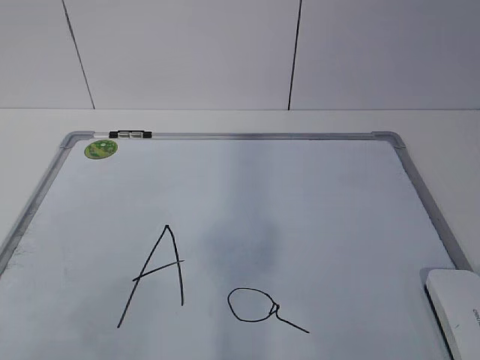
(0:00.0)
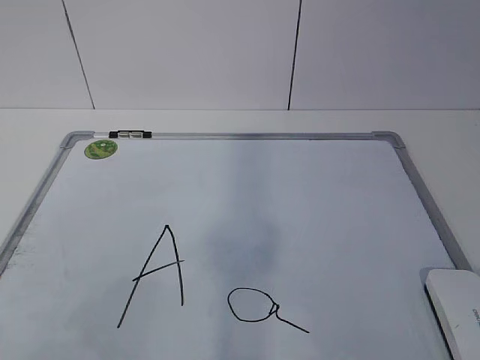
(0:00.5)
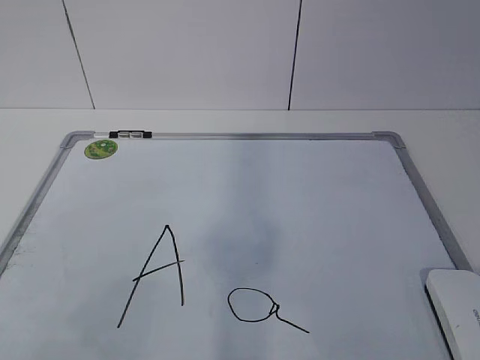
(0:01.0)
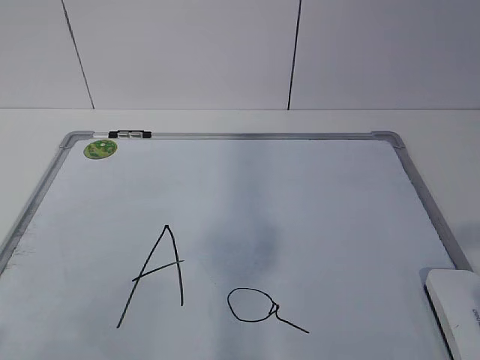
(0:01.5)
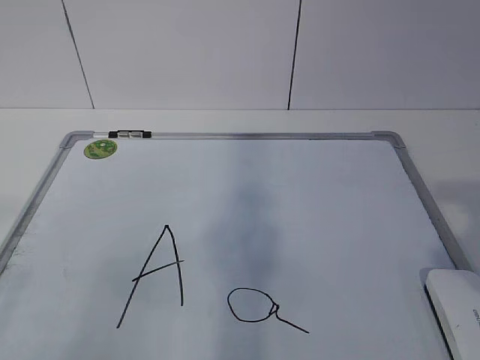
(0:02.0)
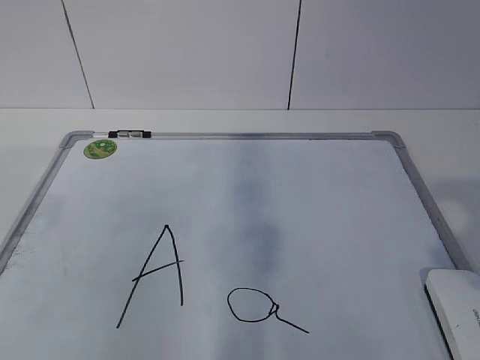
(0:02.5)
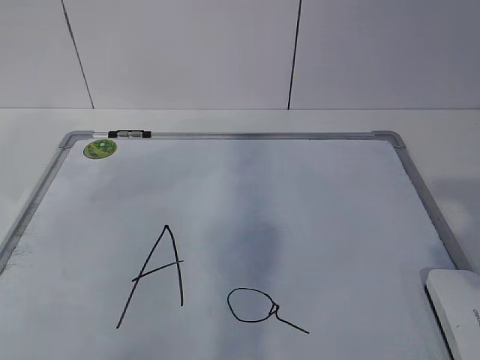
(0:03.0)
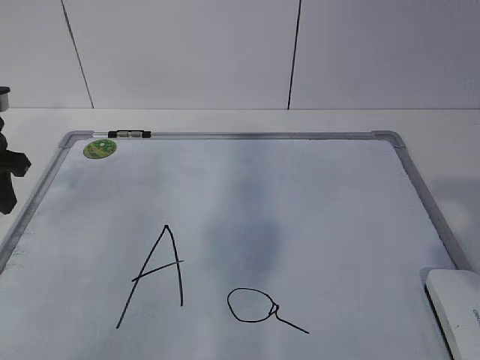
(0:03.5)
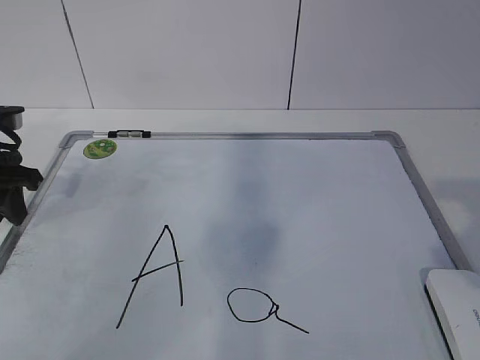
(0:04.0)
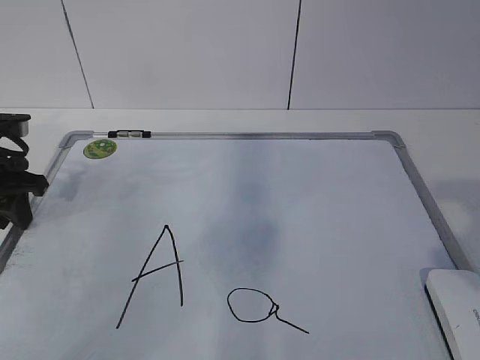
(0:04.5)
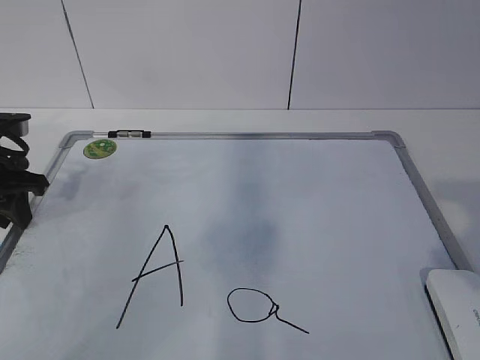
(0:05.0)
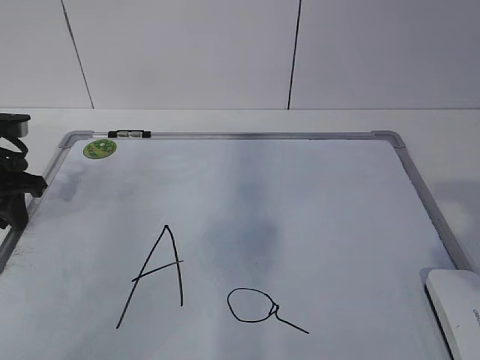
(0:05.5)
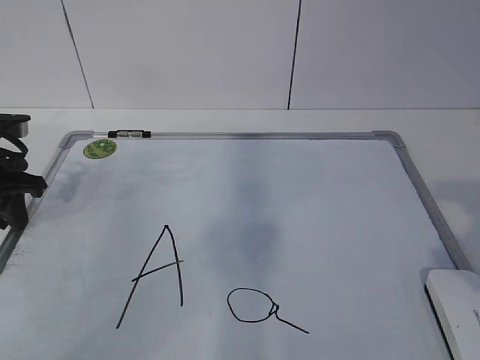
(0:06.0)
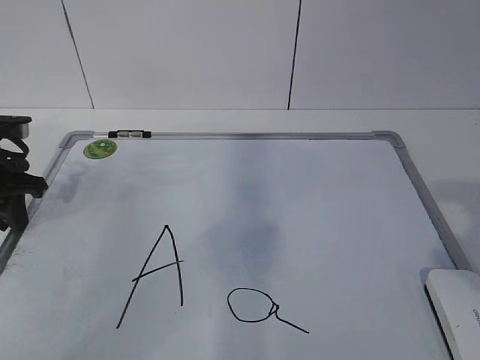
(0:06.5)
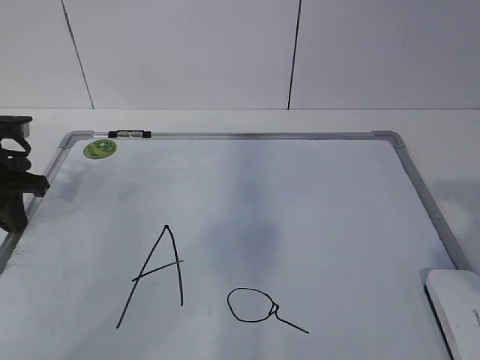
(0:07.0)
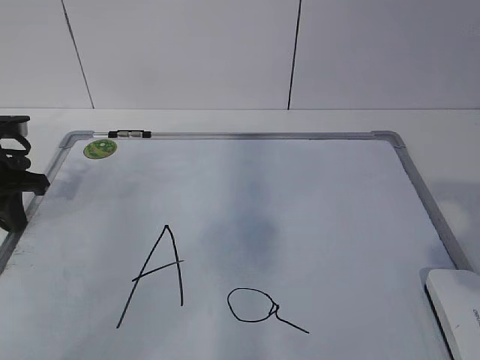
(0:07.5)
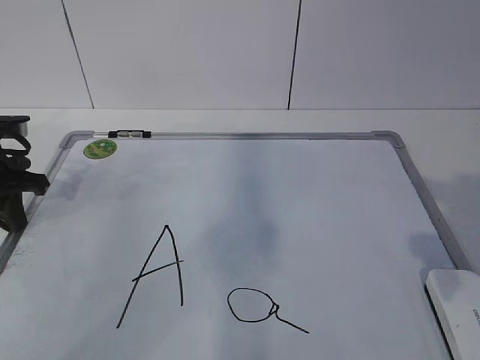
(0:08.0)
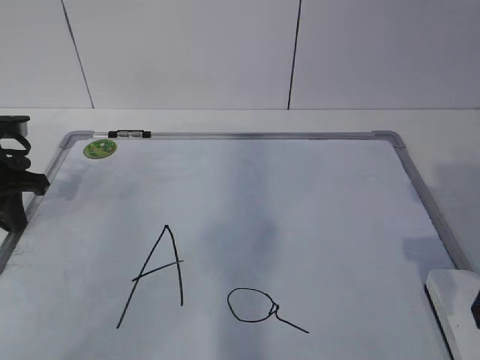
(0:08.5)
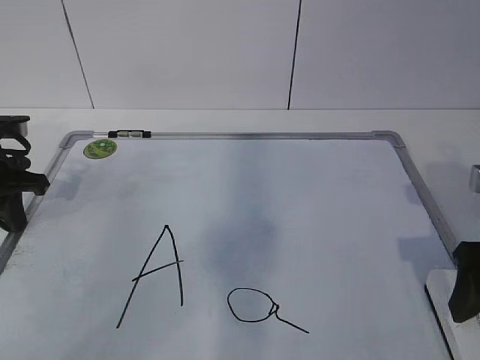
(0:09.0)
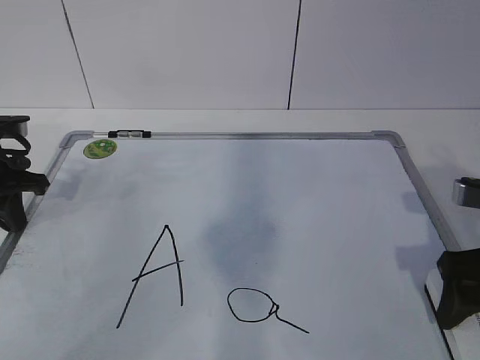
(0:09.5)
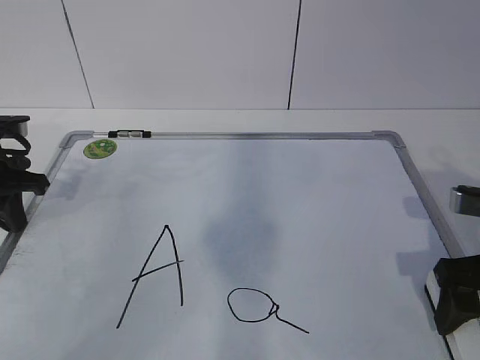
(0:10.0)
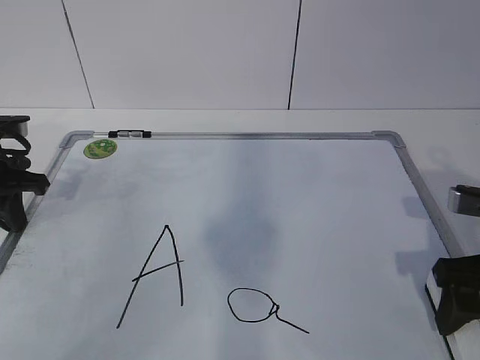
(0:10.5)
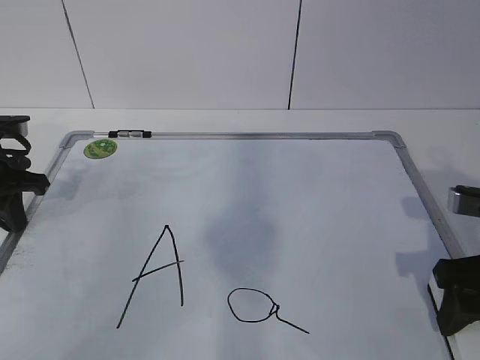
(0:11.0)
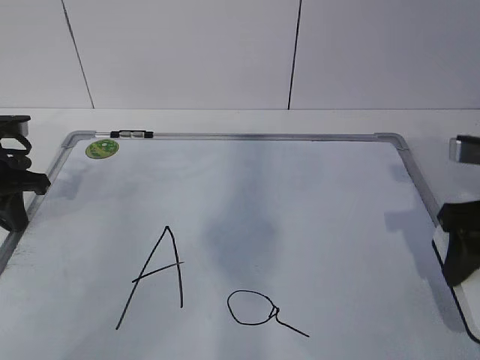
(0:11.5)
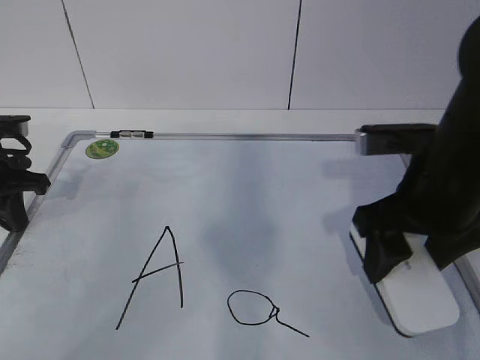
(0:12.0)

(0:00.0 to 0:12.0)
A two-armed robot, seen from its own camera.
Task of the whole recording: pick up the eraser on the blackboard and erase the letter "a".
Step, 0:00.0 - 0:05.5: Hold the drawing board steady with your left hand.
0:02.0 - 0:04.0: The left gripper goes roughly 35 cm forward and downward.
0:04.0 - 0:06.0: There are only small adjustments of the grippers.
0:08.0 - 0:10.0: The right gripper travels downward and forward by some 15 cm.
0:10.0 - 0:12.0: The right gripper moves to the left and upward, approximately 10 cm, and closes up.

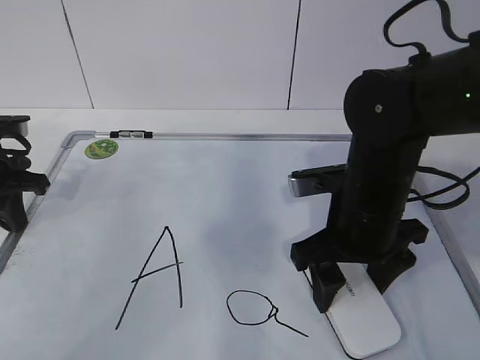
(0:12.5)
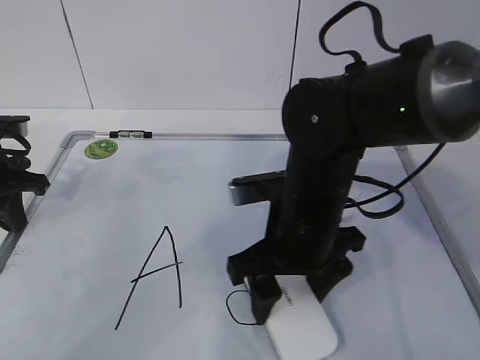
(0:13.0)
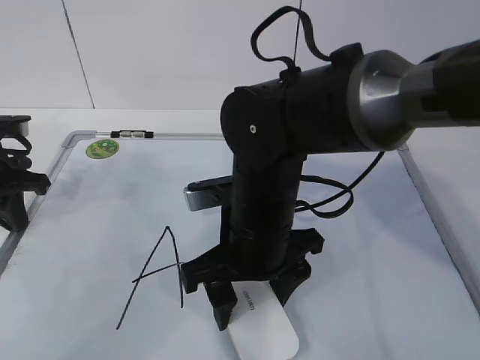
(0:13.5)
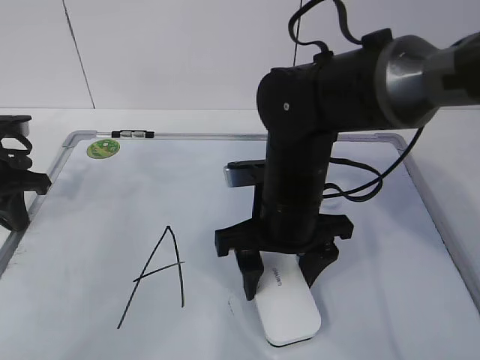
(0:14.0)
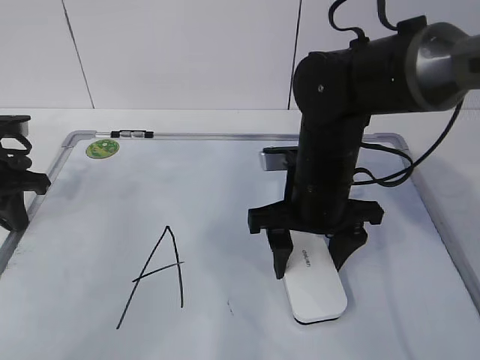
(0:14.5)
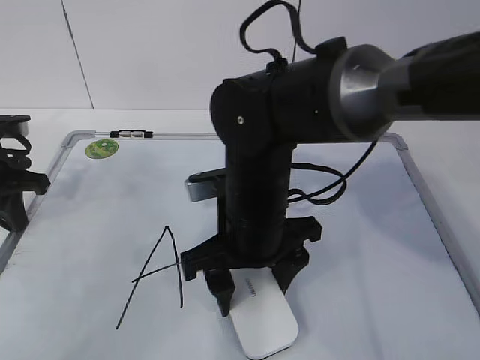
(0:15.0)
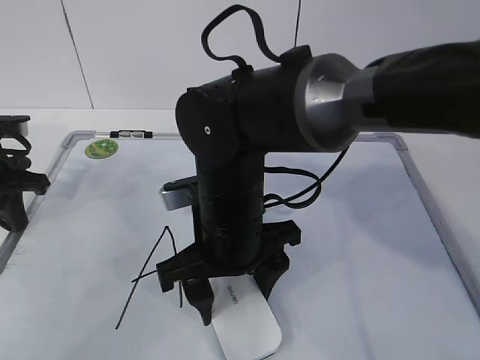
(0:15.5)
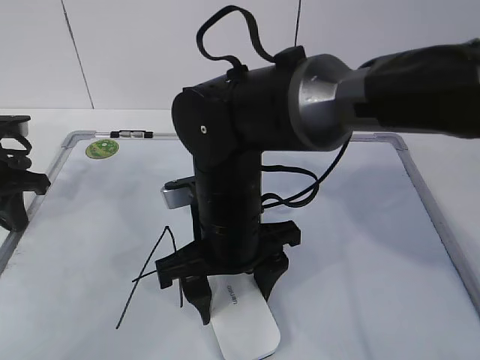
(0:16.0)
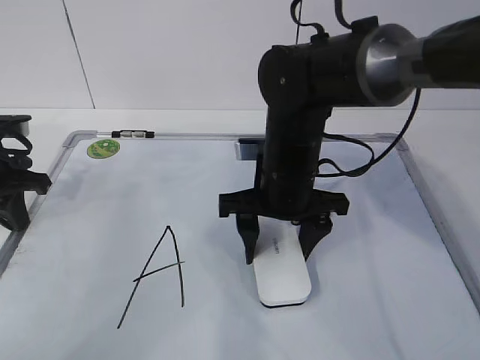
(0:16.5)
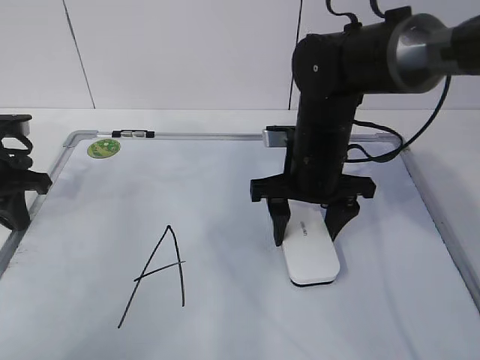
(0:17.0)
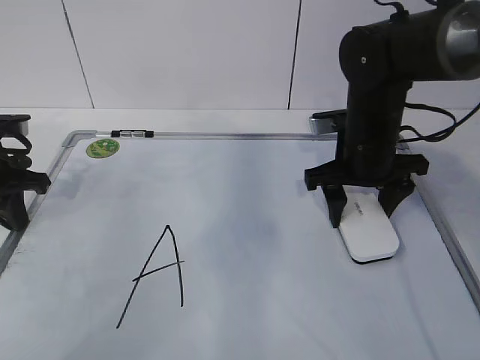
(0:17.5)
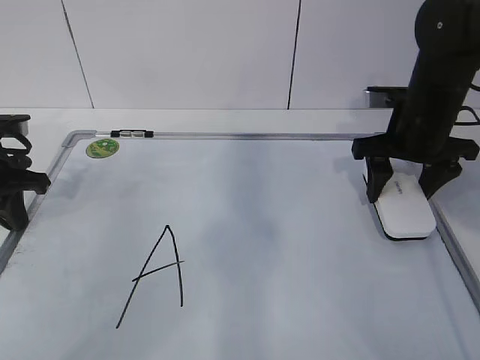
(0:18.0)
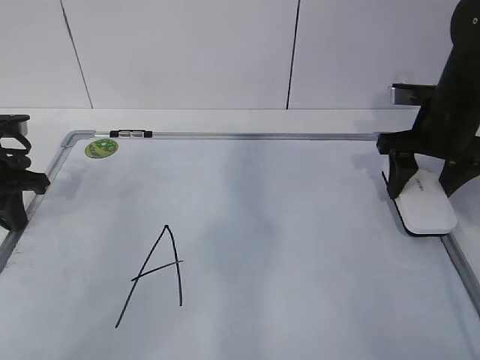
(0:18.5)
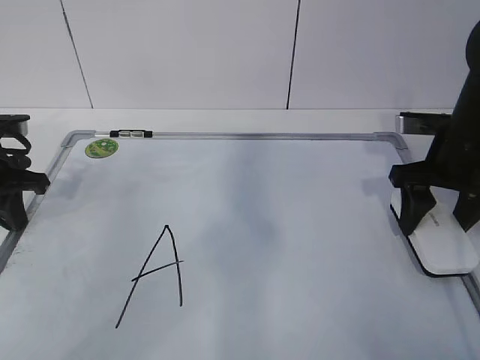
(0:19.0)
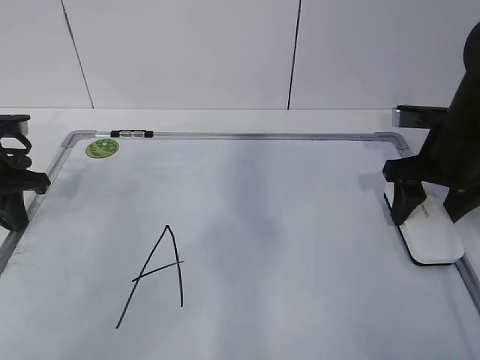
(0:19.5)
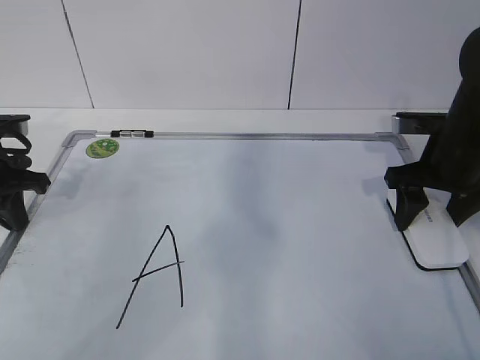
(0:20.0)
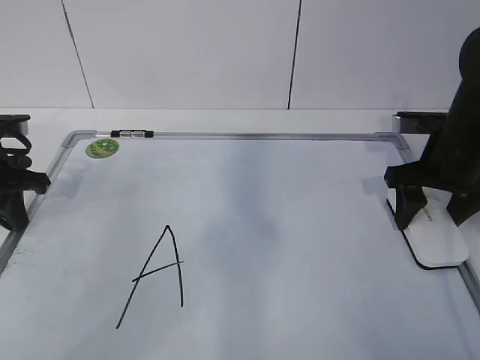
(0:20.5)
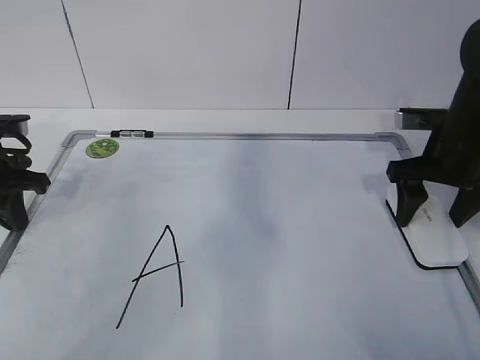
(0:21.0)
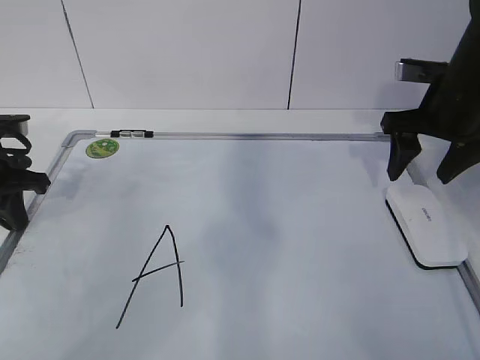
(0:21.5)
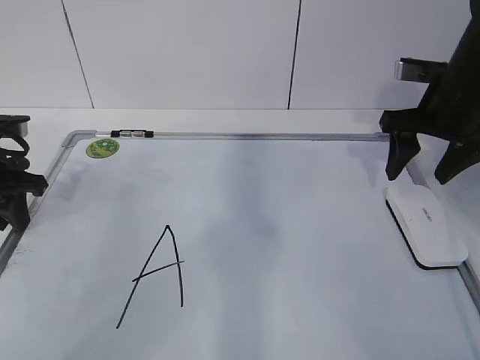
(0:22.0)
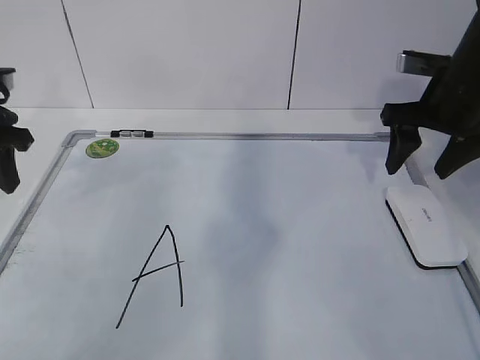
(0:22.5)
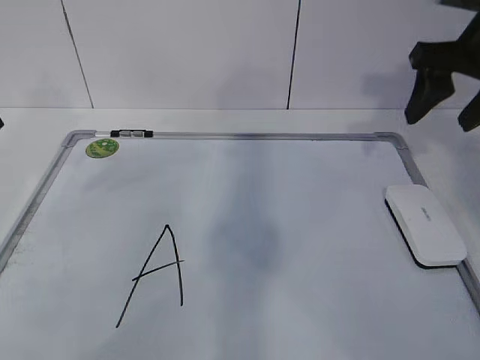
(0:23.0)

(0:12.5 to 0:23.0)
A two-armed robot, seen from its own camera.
Task of the whole recording: pick up the eraser on the blackboard and erase the letter "a".
Step, 0:12.5 - 0:14.5: Erase the letter a with your right hand.
Step, 0:15.0 - 0:17.0: Put down the eraser with your right hand.
0:12.5 - 0:14.5: The right gripper travels to the left and back again, approximately 10 cm each way.
0:14.5 - 0:16.5: The right gripper travels to the left and back again, approximately 10 cm each way.
0:16.5 - 0:19.0: The right gripper goes roughly 20 cm to the right.
0:19.0 - 0:21.0: The right gripper opens.
0:21.0 - 0:23.0: The two grippers go roughly 10 cm upward. The left gripper opens; the right gripper closes up.

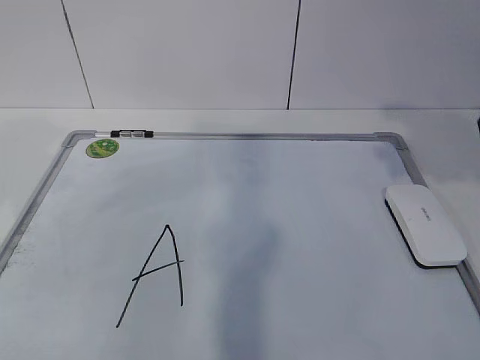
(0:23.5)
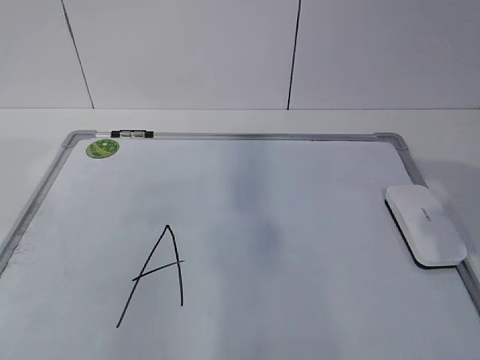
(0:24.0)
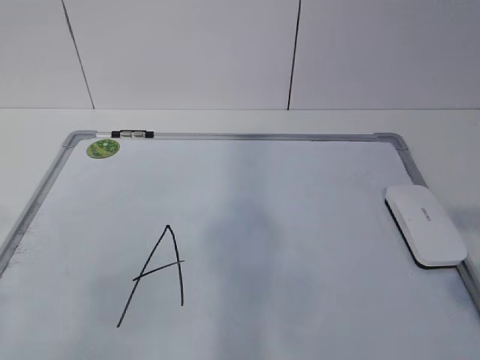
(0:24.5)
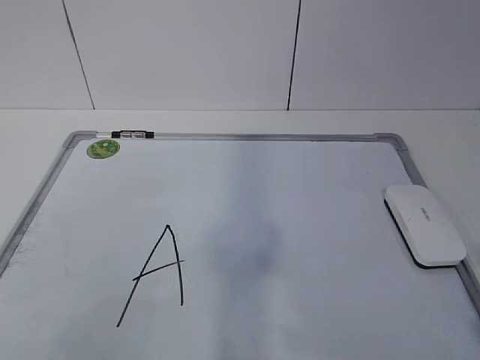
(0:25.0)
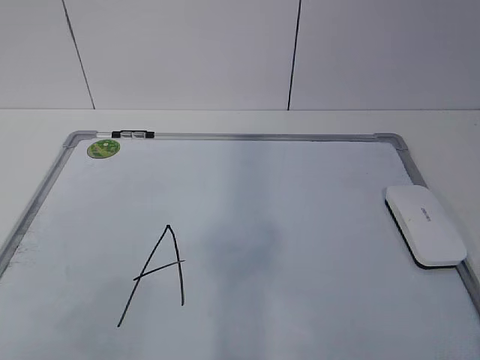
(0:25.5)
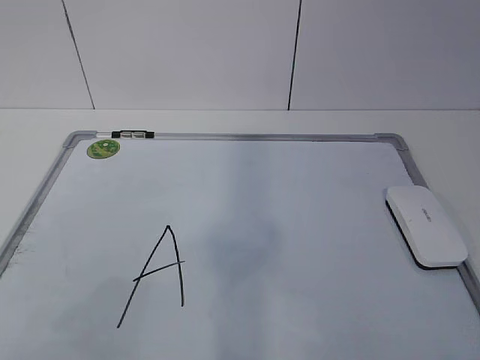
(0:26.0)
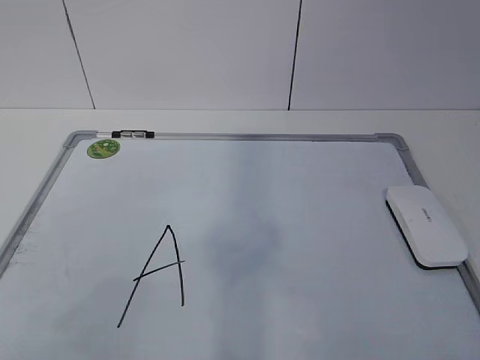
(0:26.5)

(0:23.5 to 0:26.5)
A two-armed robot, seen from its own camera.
Task of the whole recording: pick up the eraser on the blackboard and erase the letter "a".
0:23.5 - 0:25.0: The left gripper goes approximately 25 cm backward.
